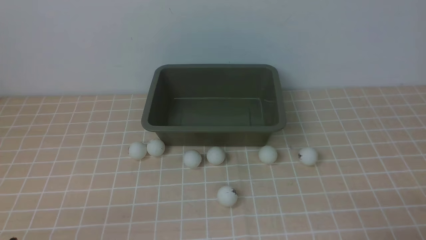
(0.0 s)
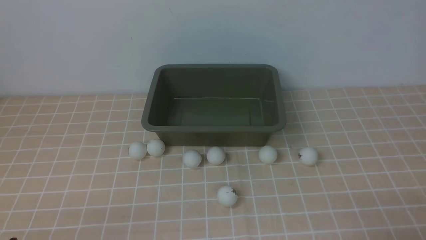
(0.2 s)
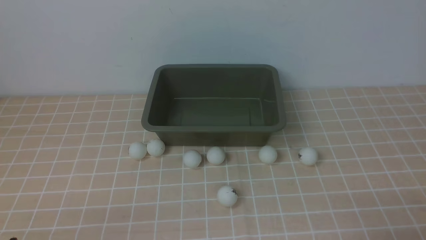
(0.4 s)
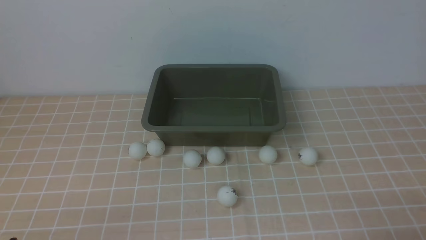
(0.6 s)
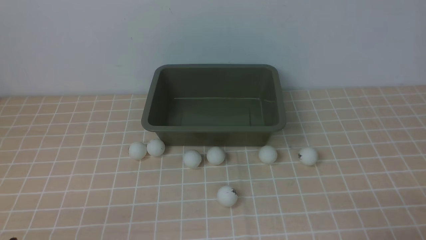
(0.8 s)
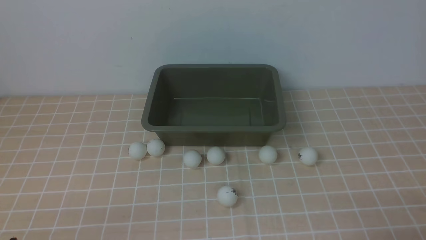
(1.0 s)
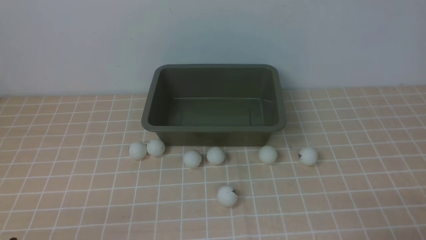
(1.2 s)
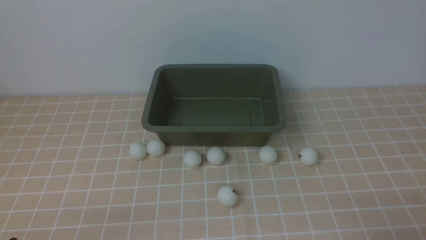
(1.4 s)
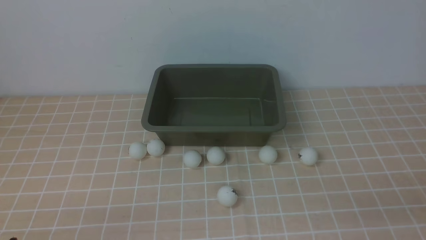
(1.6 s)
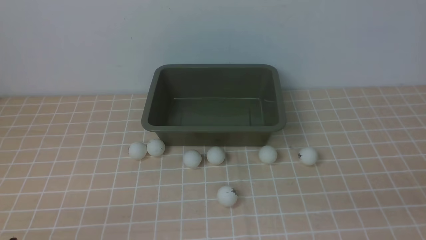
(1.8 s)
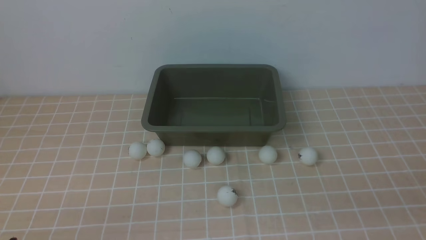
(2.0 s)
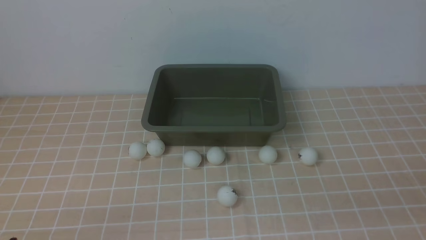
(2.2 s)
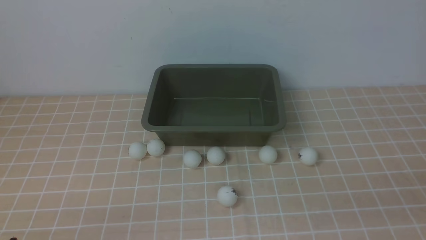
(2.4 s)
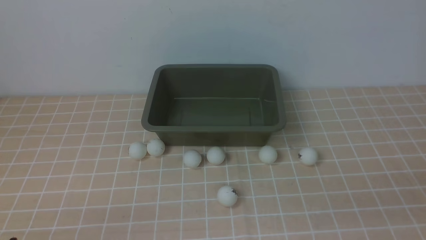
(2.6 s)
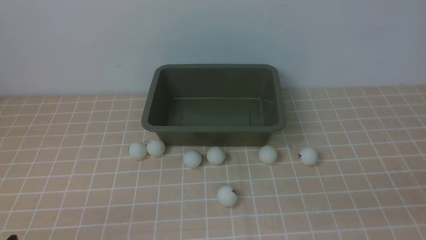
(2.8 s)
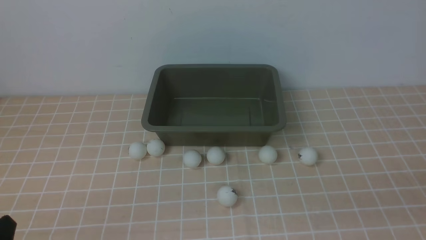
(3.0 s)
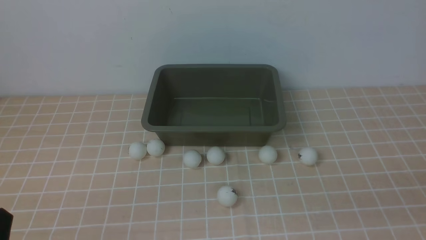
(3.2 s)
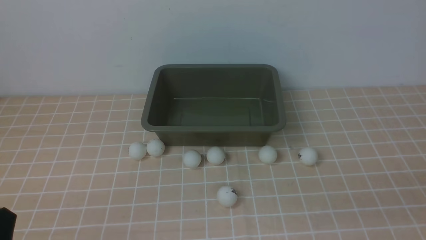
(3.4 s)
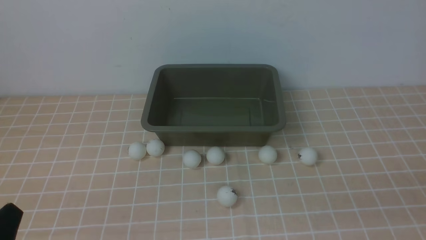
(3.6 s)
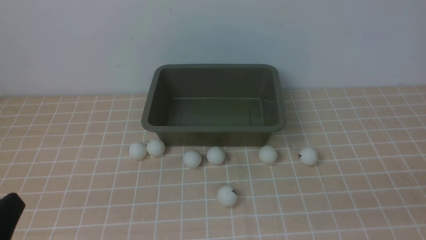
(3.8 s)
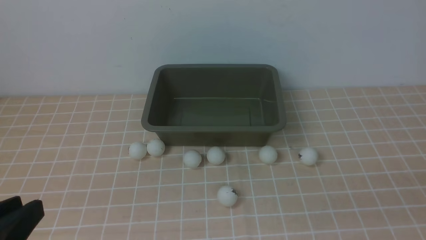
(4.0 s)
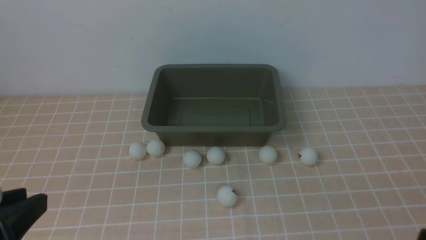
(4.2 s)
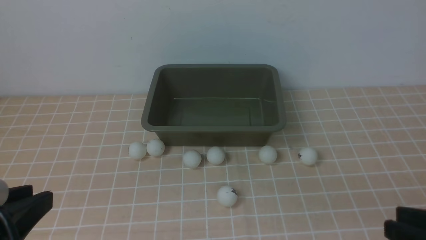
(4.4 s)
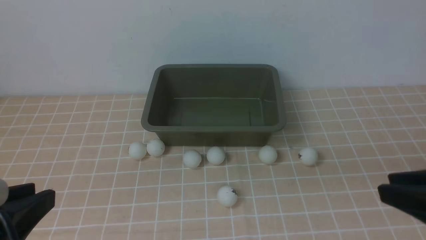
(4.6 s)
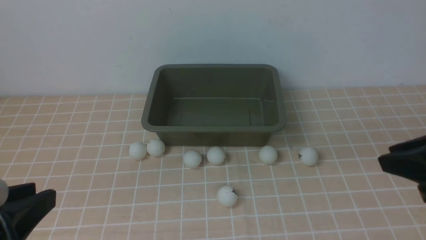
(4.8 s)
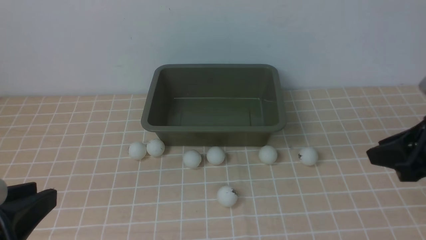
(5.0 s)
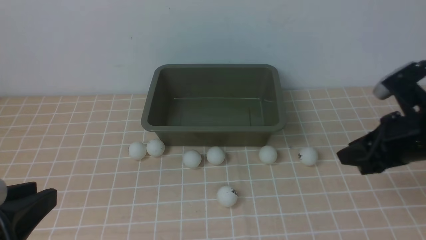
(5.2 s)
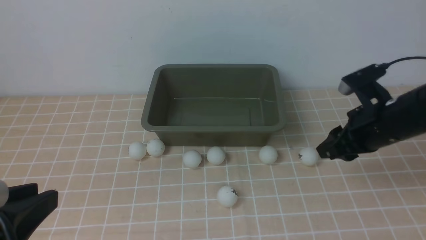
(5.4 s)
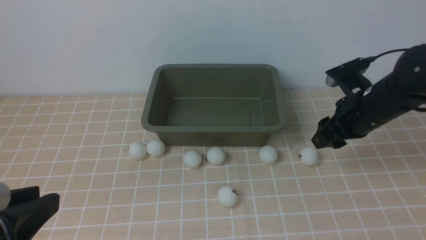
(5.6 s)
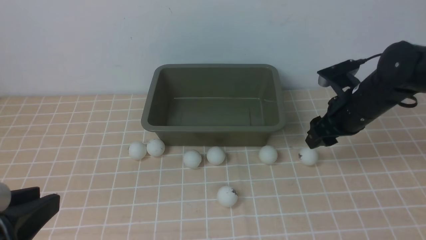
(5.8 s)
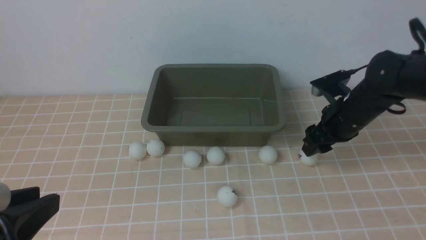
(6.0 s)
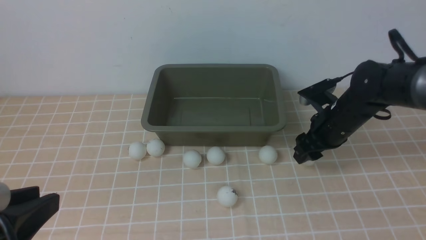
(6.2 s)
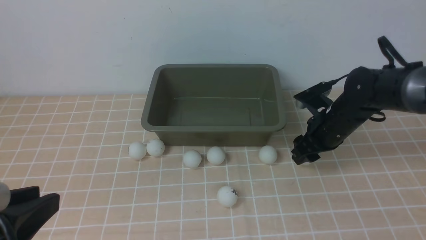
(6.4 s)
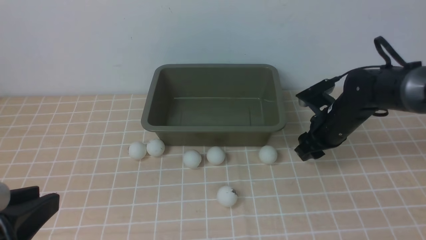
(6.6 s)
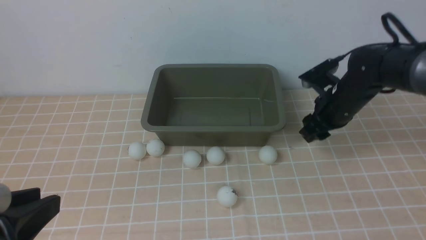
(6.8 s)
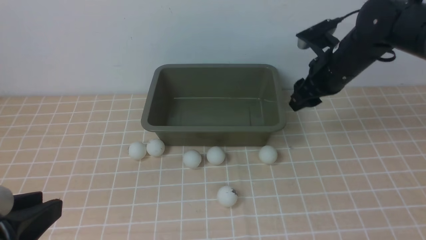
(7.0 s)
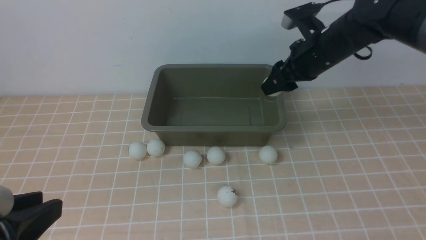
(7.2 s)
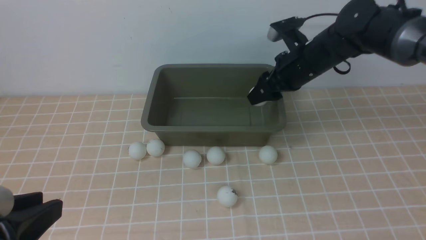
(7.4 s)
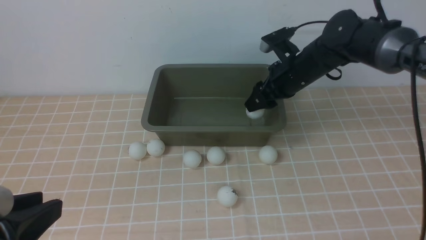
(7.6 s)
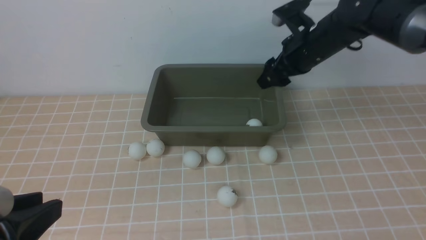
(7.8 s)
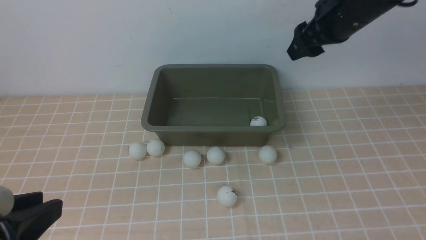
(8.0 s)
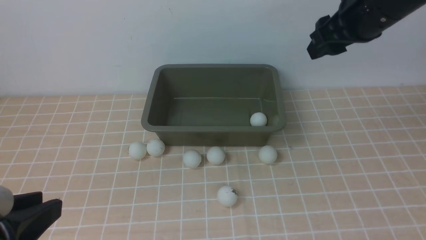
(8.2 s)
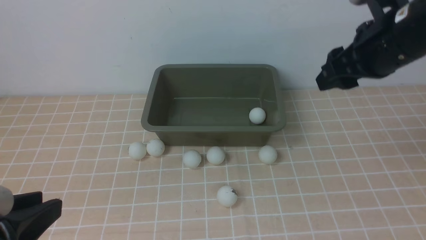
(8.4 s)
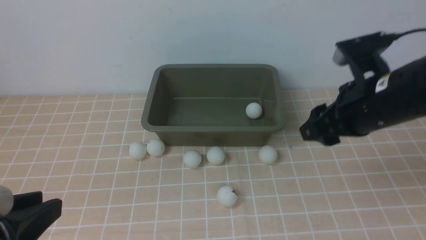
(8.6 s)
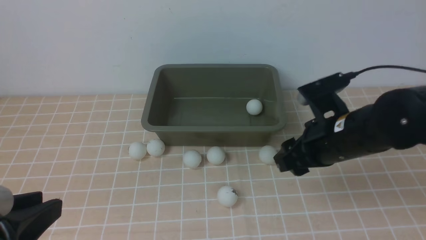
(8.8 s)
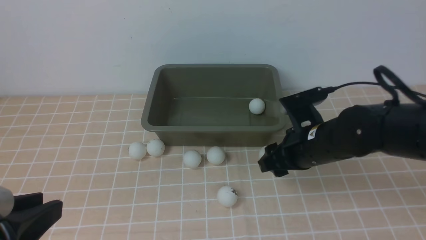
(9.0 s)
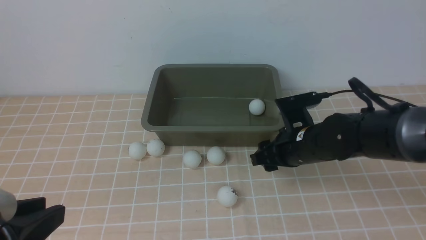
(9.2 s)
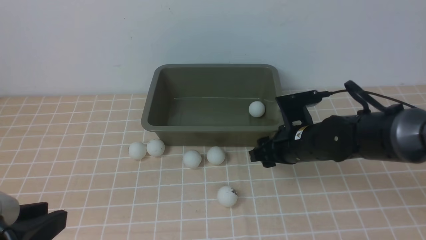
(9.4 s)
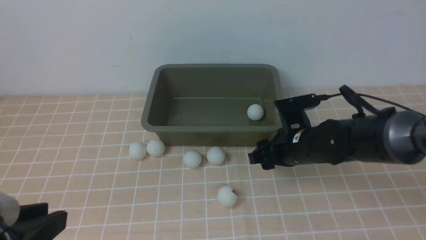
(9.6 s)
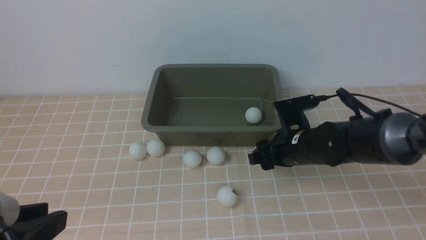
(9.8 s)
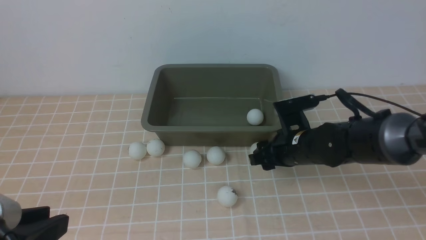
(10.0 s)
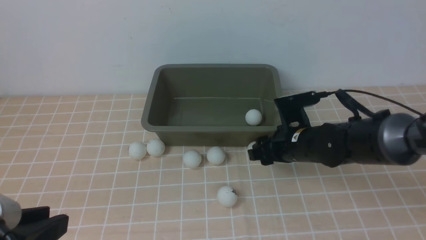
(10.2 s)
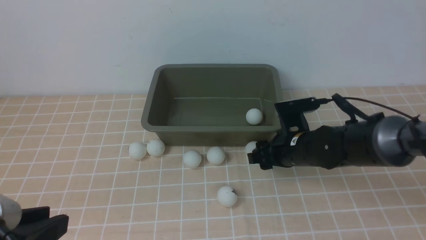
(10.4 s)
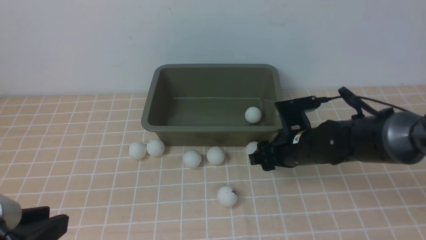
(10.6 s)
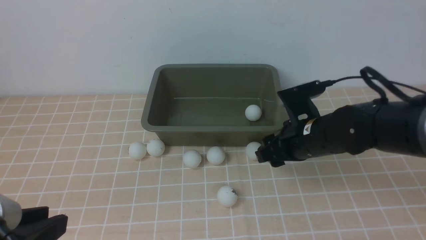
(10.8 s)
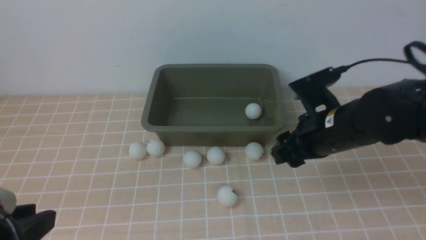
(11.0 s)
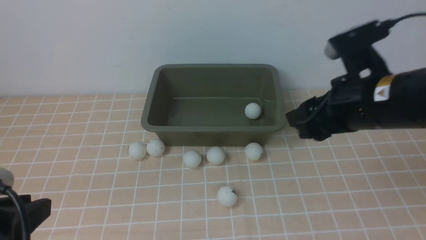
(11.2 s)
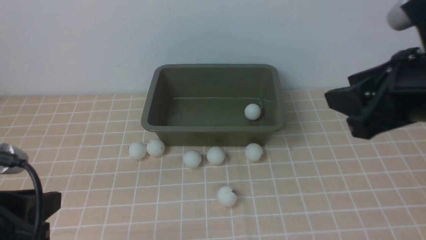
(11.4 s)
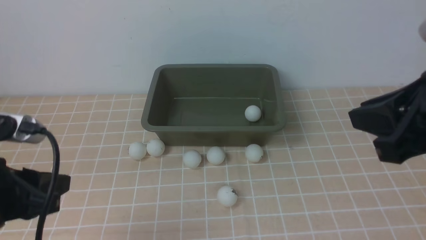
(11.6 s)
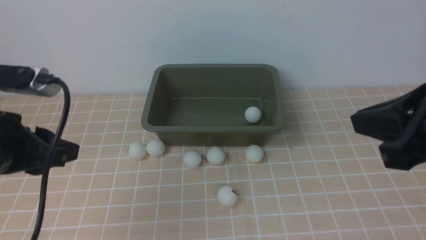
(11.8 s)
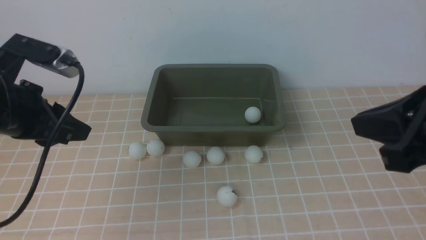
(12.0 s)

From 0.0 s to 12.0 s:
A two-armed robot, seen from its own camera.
Step, from 0.0 s to 7.0 s: use the right arm to clamp the table tennis ball closest to it.
Step, from 7.2 s to 7.8 s: use the right arm to put the table tennis ball into the box.
From 3.0 s to 4.4 s: The right gripper shifts some 5 cm forward. Meanwhile the left gripper heads upward, covering roughly 10 cm.
From 4.4 s to 6.0 s: The right gripper travels forward by roughly 30 cm, and opens.
From 6.0 s to 7.6 s: The right gripper shifts approximately 10 cm upward, to the left and forward.
From 7.6 s to 9.0 s: The right gripper moves backward, some 15 cm, and moves roughly 10 cm upward and comes back.
From 9.0 s to 10.4 s: The right gripper shifts about 5 cm downward.
From 10.4 s to 12.0 s: The left gripper is displaced forward by some 20 cm. Meanwhile the right gripper heads upward and backward, covering some 30 cm, and closes its fingers.

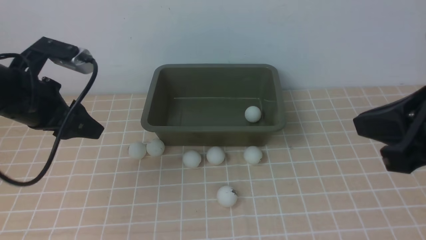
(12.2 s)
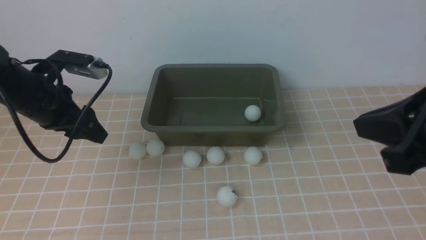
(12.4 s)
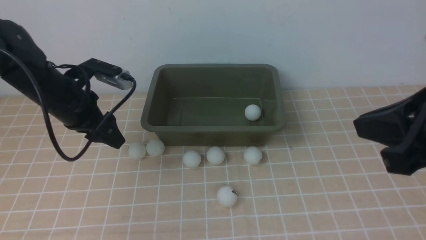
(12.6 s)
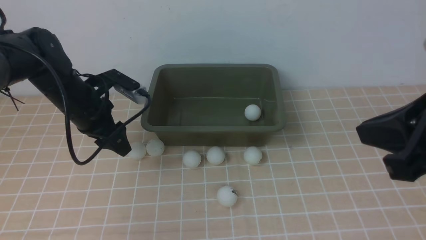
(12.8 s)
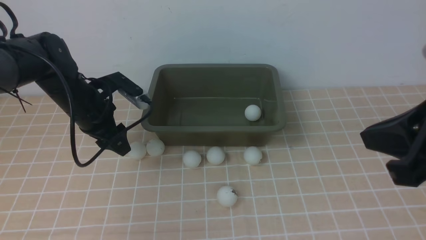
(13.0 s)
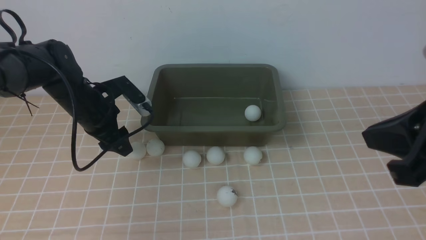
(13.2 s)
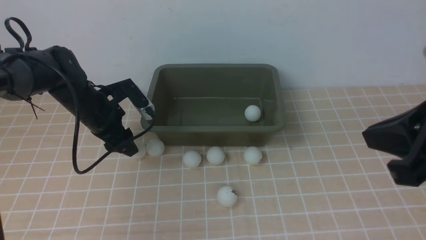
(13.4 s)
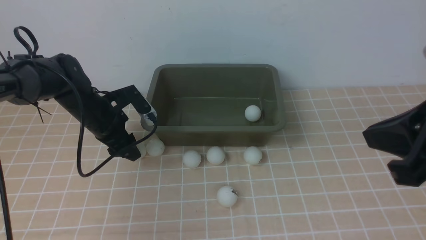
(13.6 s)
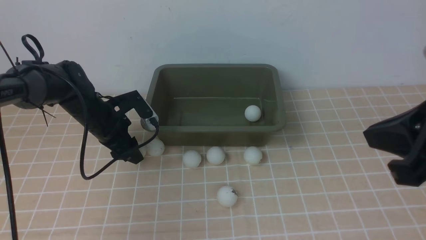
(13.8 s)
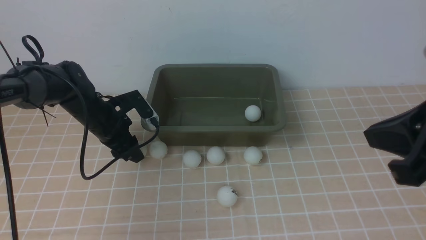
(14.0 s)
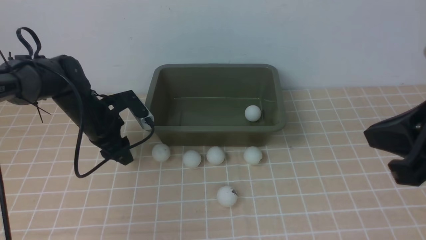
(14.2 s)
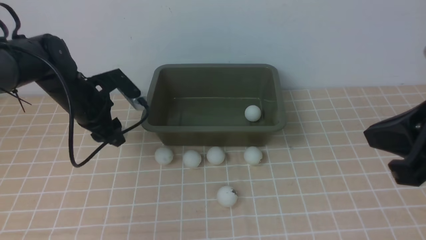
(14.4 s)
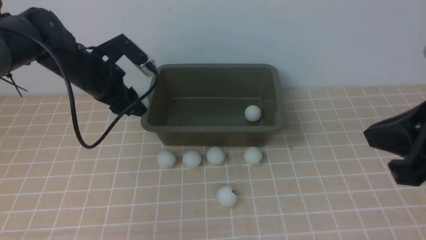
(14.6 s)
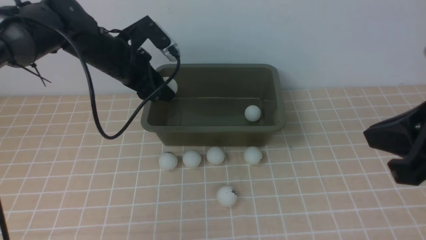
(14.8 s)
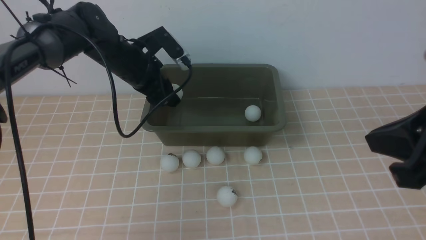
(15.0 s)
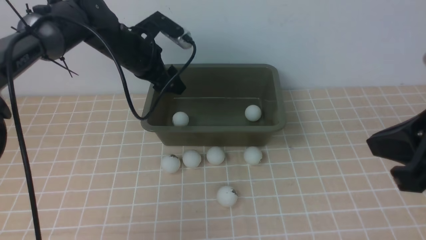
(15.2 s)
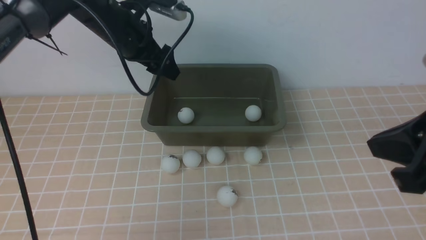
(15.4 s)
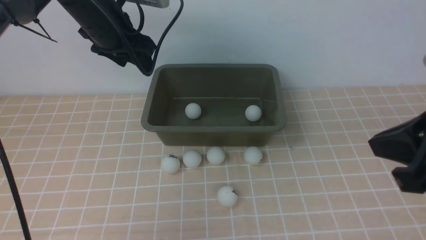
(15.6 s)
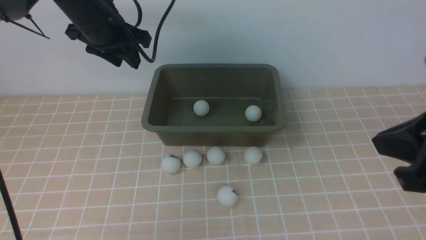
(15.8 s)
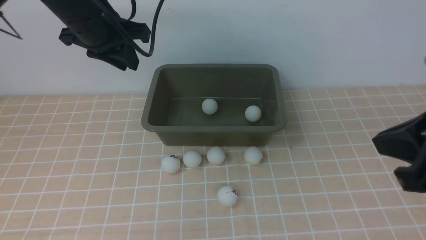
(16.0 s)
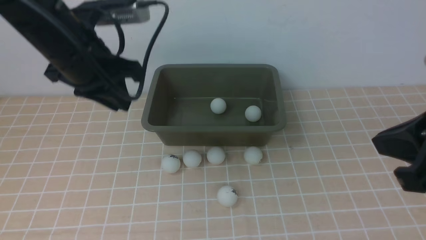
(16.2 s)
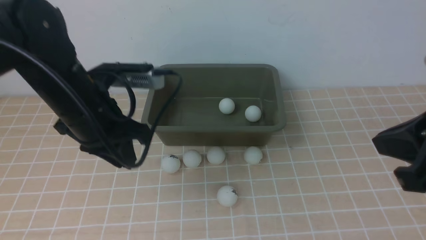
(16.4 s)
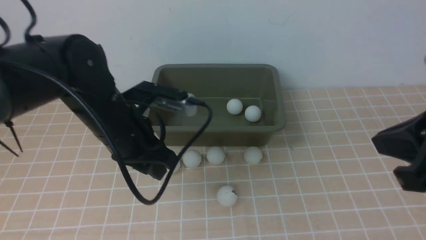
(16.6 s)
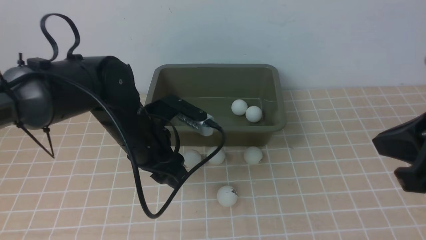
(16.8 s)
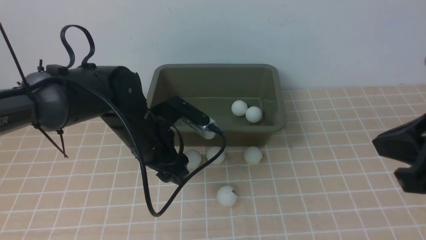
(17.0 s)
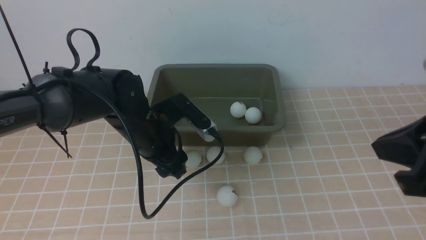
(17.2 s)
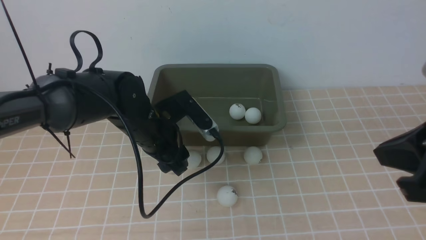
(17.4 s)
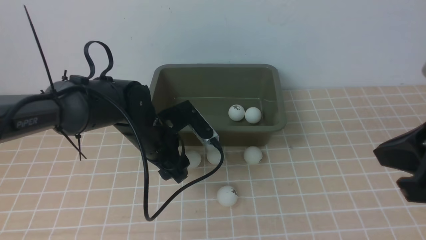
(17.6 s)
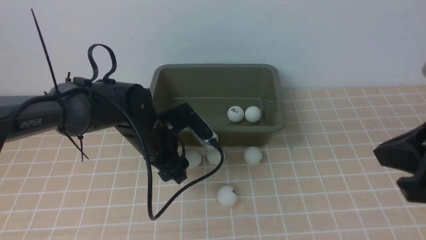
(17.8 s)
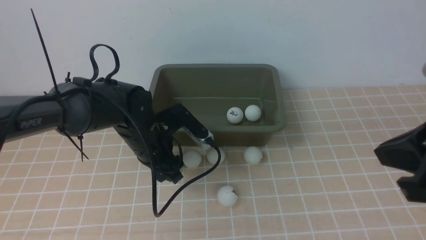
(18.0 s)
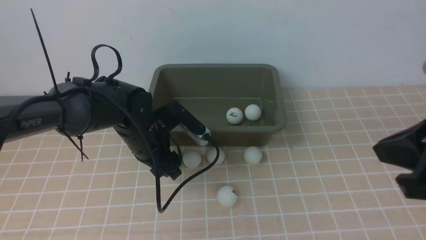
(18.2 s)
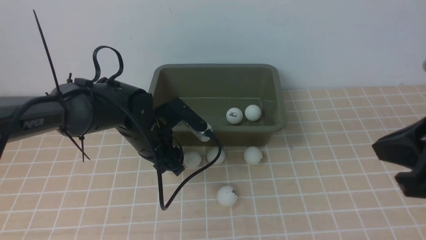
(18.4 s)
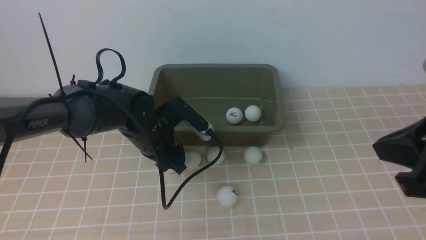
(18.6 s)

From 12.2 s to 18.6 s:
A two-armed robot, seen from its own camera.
Step, from 12.2 s to 14.2 s: use the left arm to clamp the table tennis ball closest to it.
Step, from 14.4 s to 15.4 s: use the left arm to put the table tennis ball into the box.
From 12.2 s to 13.8 s: The left gripper travels downward and forward by roughly 20 cm.
From 13.8 s to 15.4 s: The left gripper travels upward by about 15 cm.
From 15.4 s to 17.0 s: The left gripper shifts roughly 15 cm backward, downward and to the right, and closes, then reopens.
From 17.0 s to 18.6 s: The left gripper changes place by approximately 5 cm.
